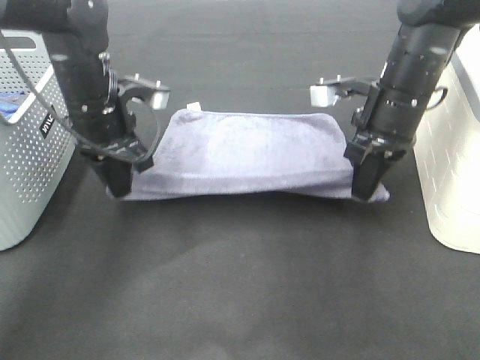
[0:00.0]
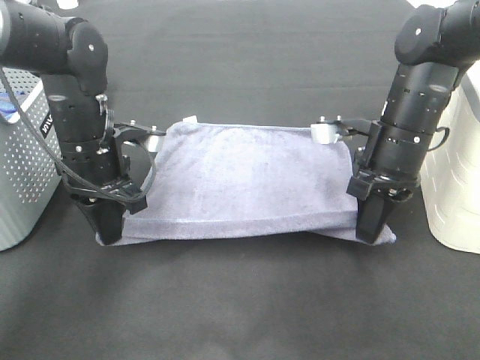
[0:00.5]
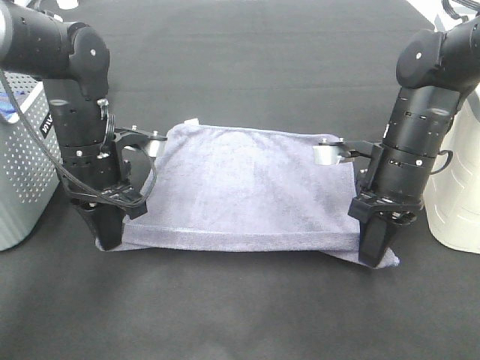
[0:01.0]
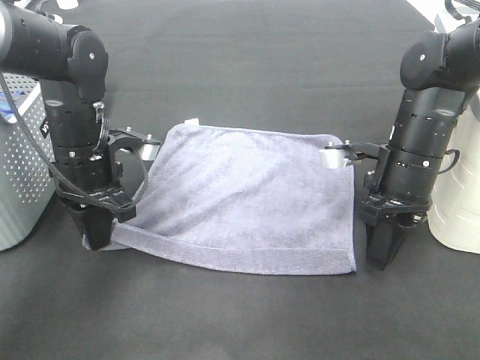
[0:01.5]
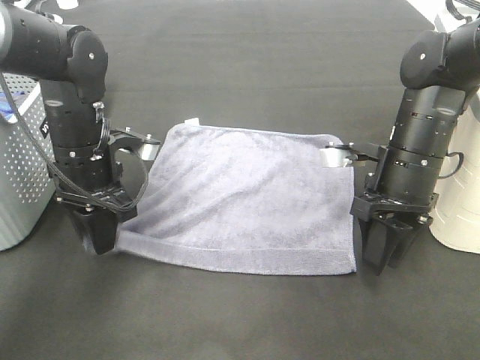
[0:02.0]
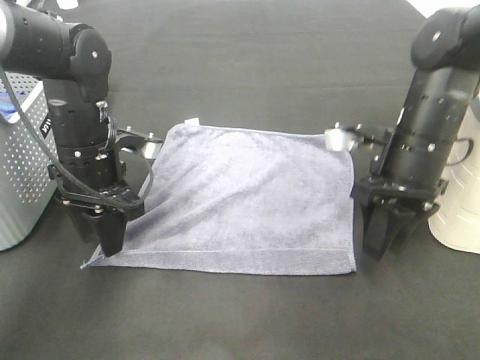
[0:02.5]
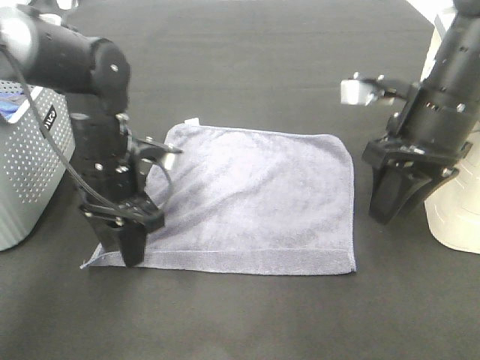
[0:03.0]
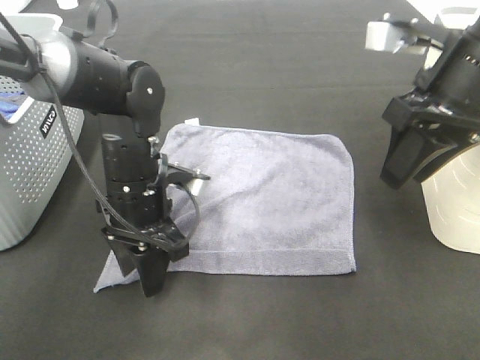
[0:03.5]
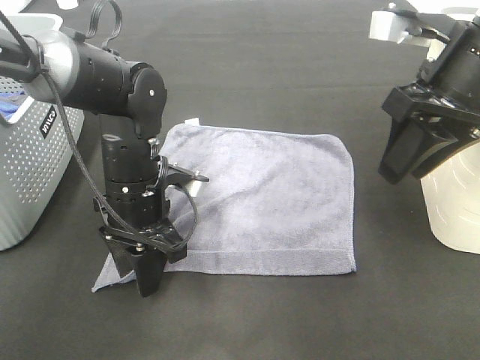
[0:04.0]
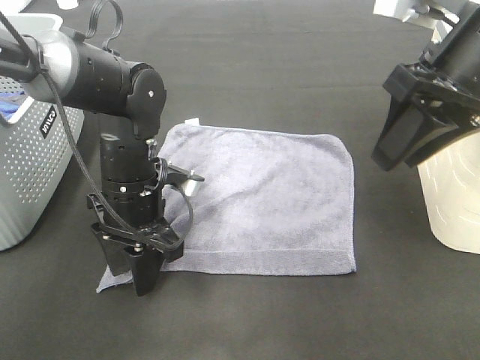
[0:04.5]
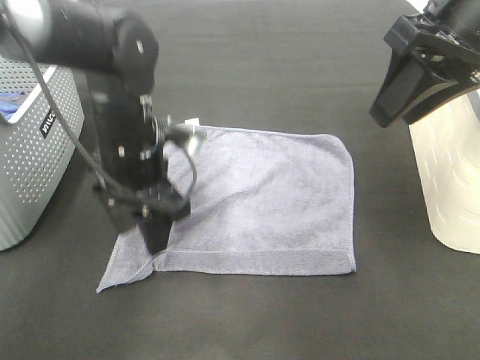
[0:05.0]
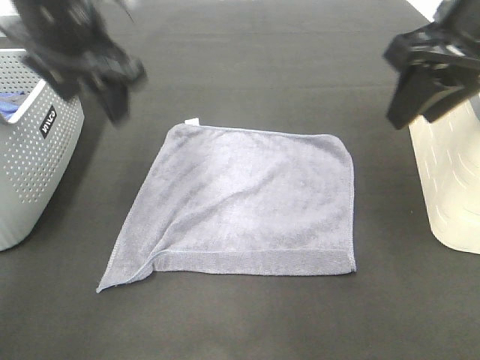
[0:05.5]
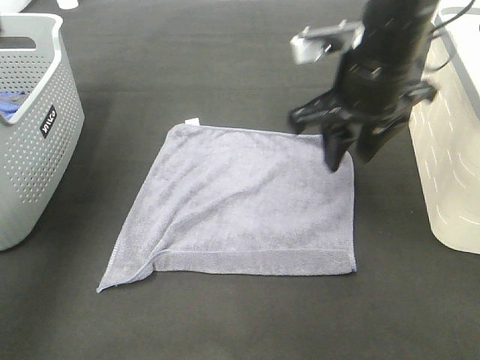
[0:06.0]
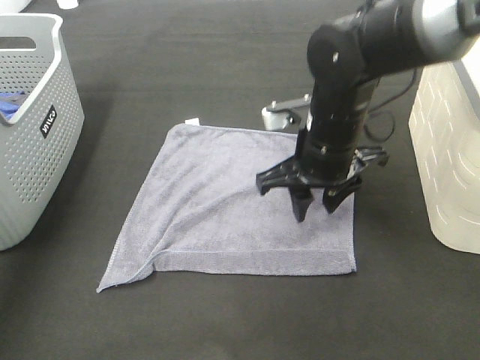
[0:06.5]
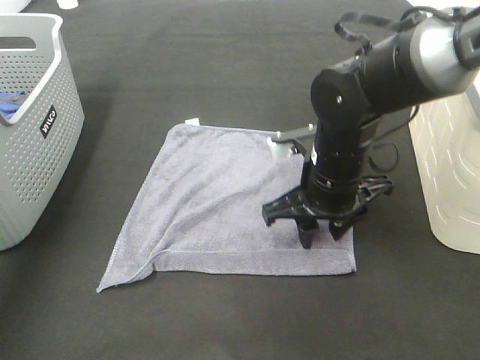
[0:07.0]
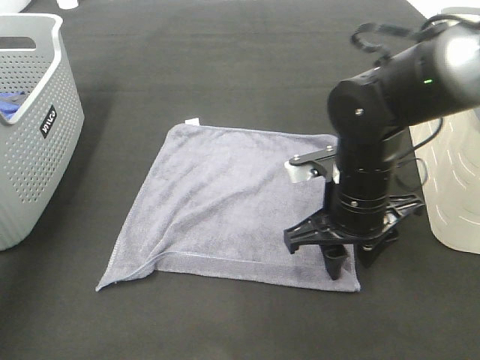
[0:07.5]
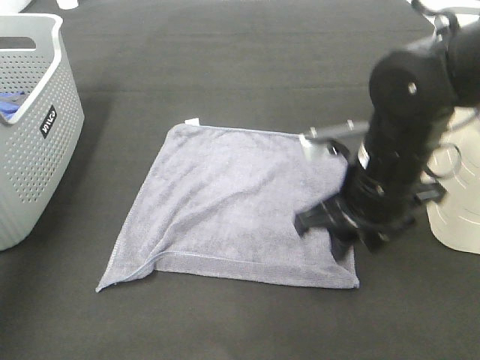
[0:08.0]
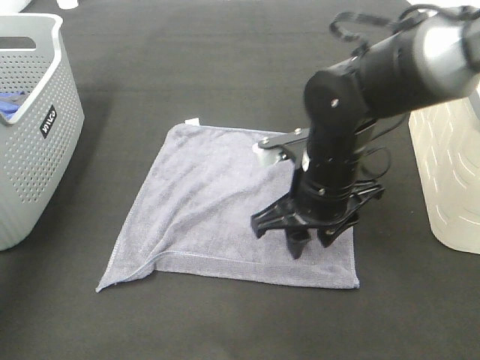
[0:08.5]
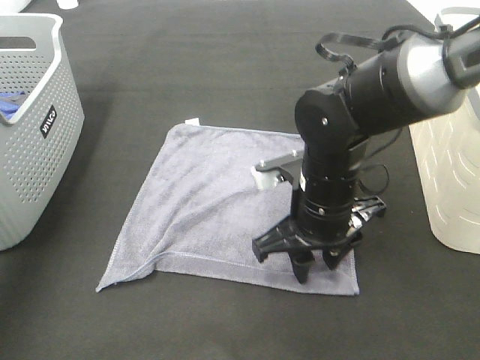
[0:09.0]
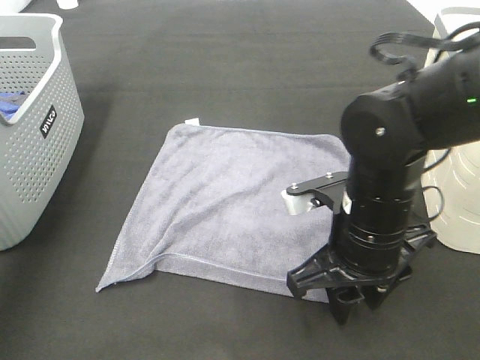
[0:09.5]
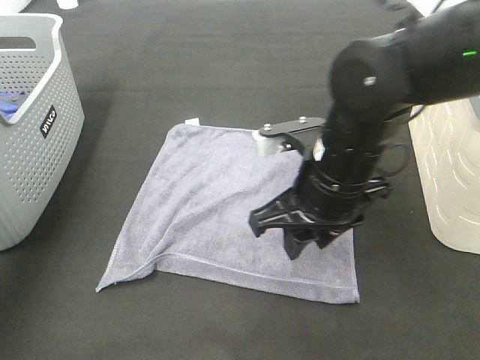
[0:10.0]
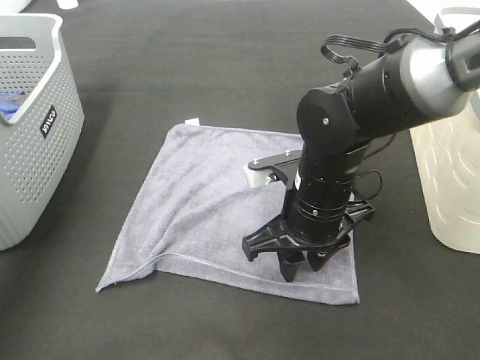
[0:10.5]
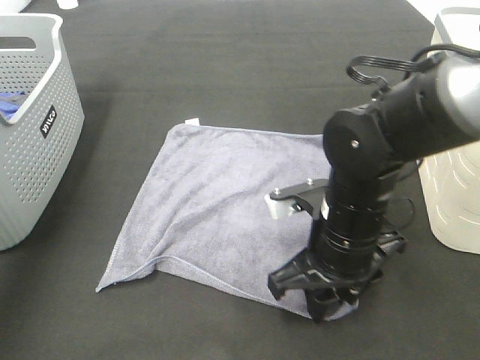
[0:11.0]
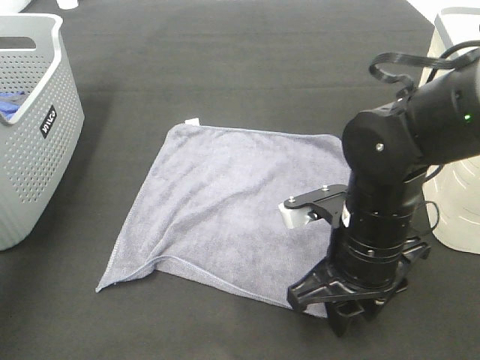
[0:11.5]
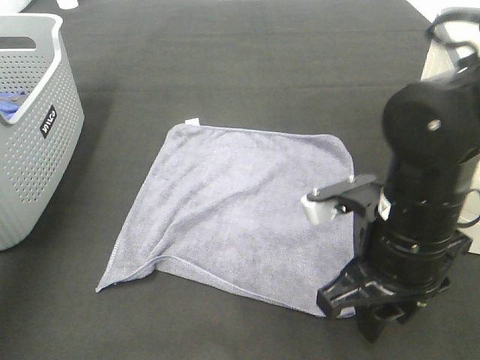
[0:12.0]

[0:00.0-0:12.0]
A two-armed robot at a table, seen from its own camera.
Task of the whole recording: Remove the towel and place it.
Step, 0:00.0 to 0:07.5: Right hand:adjust the gray towel.
0:00.0 to 0:02.0: The right gripper shifts by about 5 cm, and opens its fingers. The left gripper opens.
0:02.0 to 0:04.0: The right gripper heads upward, covering approximately 15 cm, while the left gripper shifts about 5 cm to the right.
0:04.0 to 0:06.0: The right gripper travels to the left by some 10 cm. The left gripper moves upward and to the left, about 30 cm.
0:06.0 to 0:08.0: The left gripper shifts about 5 cm to the left, while the right gripper moves downward and backward, approximately 10 cm.
0:10.0 to 0:12.0: The right gripper travels backward by some 5 cm.

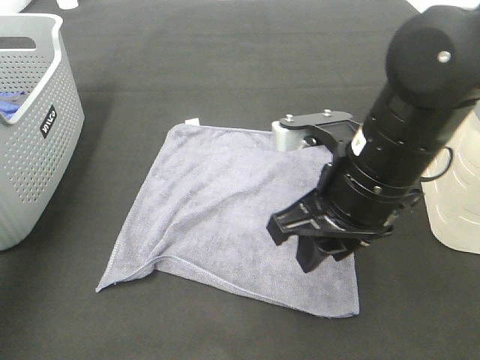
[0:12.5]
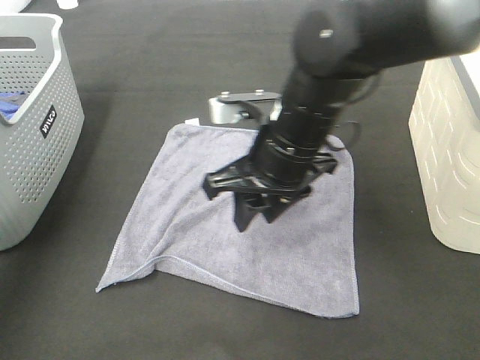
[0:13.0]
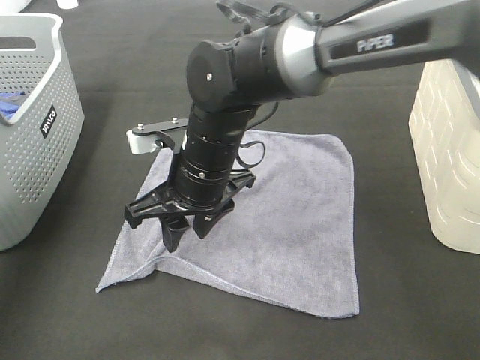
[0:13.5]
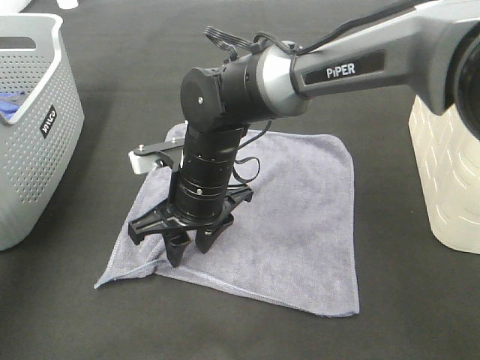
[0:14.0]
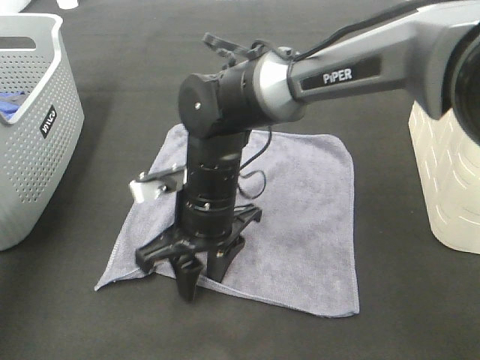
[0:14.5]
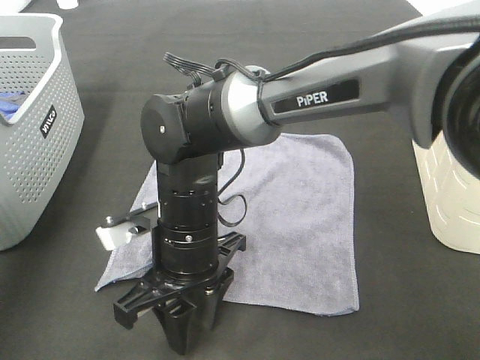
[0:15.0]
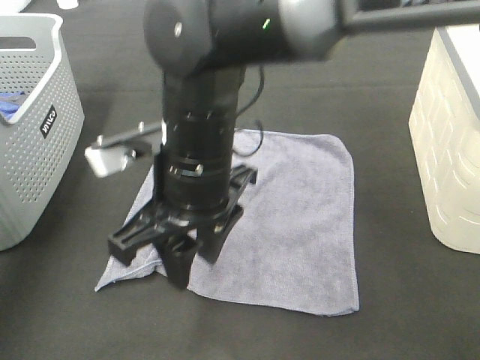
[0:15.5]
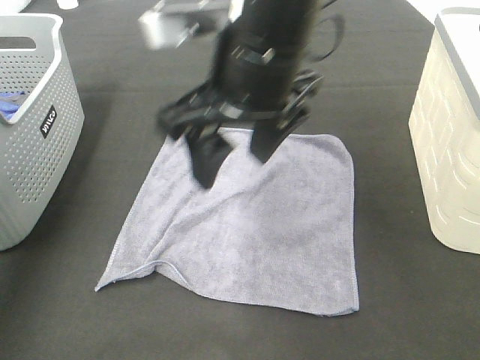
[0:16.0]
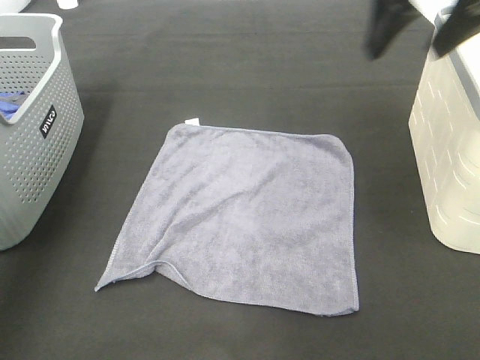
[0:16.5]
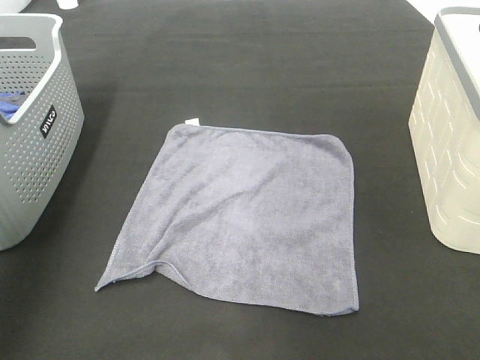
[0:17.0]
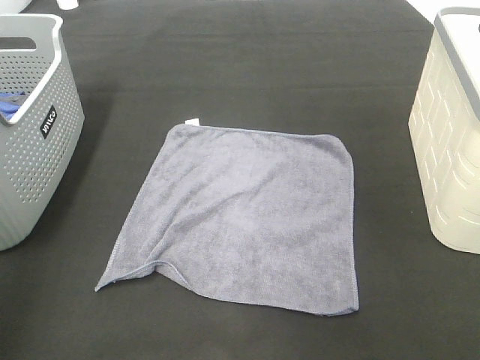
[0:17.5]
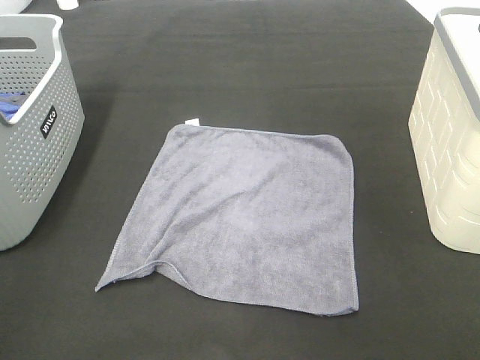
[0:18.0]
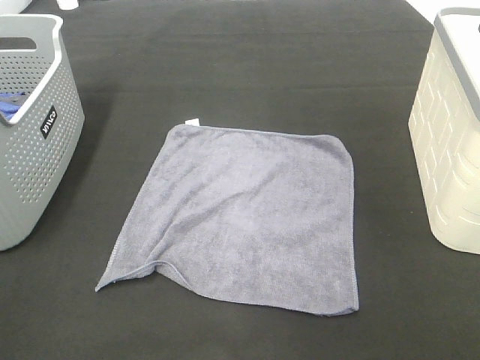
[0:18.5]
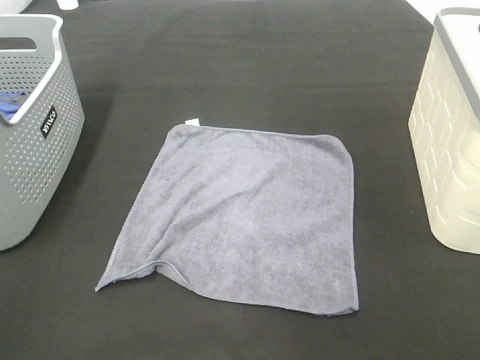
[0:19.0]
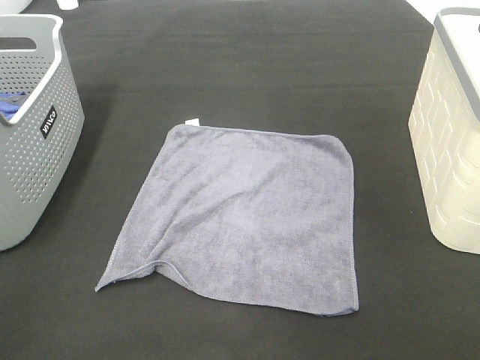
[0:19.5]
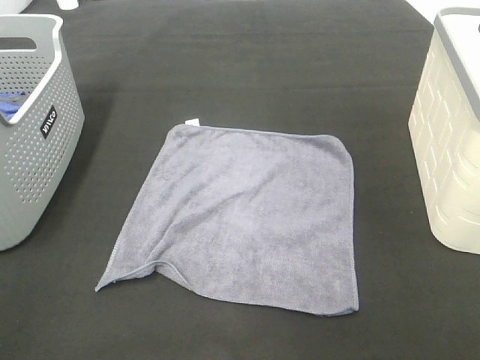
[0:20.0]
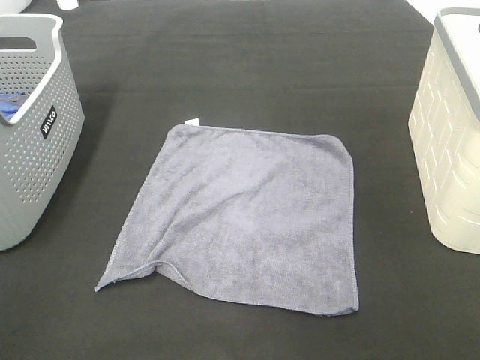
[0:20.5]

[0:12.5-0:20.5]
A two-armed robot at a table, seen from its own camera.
Task of the whole recording: Remove the towel and place it.
0:12.5 to 0:14.5: The right gripper moves to the left and downward, approximately 15 cm.
0:14.5 to 0:16.5: The right gripper shifts some 35 cm upward and to the right.
0:16.5 to 0:18.5: Both grippers move backward, roughly 35 cm.

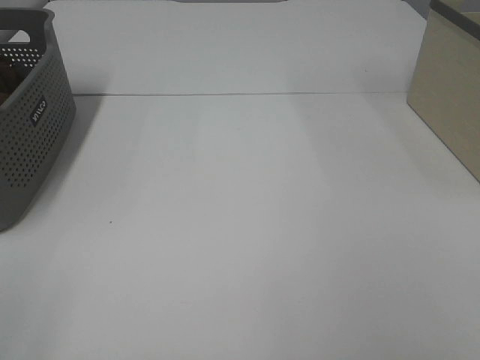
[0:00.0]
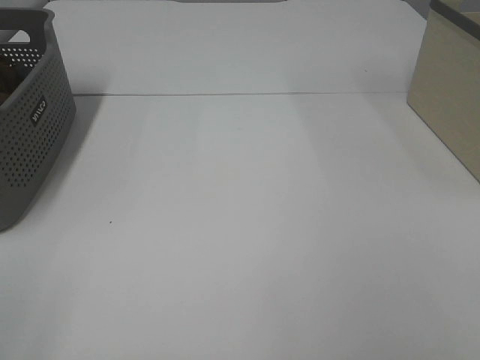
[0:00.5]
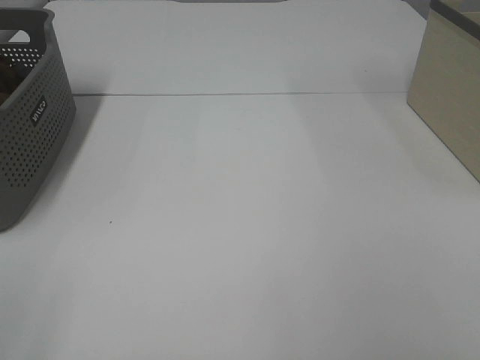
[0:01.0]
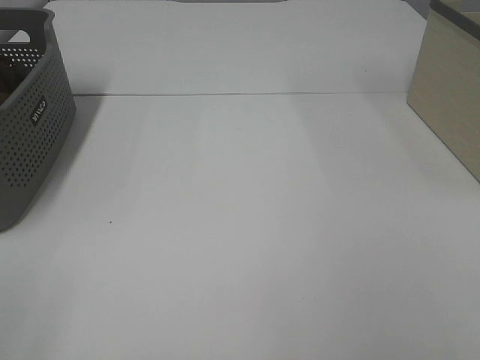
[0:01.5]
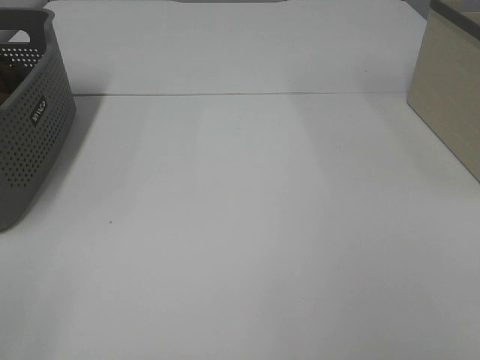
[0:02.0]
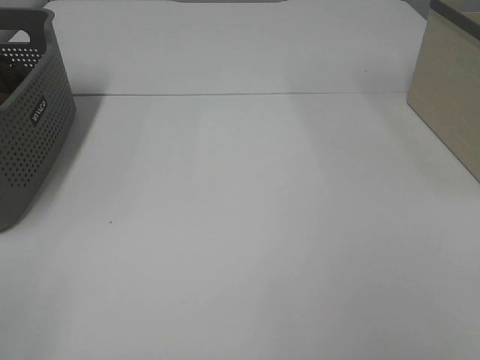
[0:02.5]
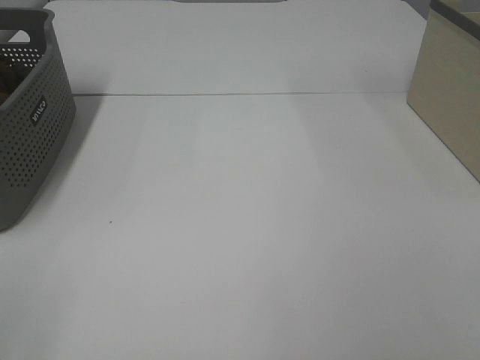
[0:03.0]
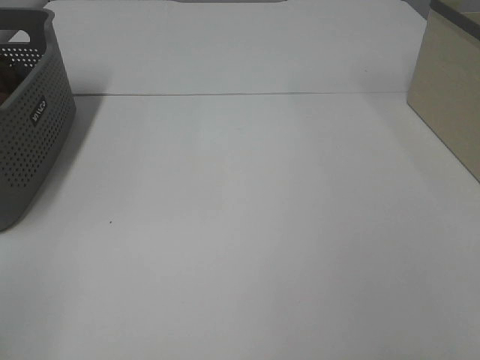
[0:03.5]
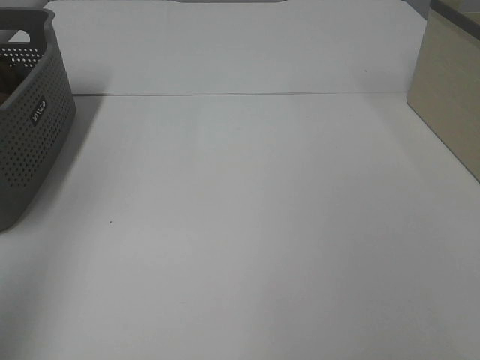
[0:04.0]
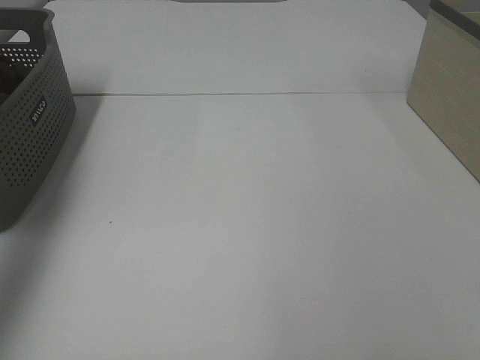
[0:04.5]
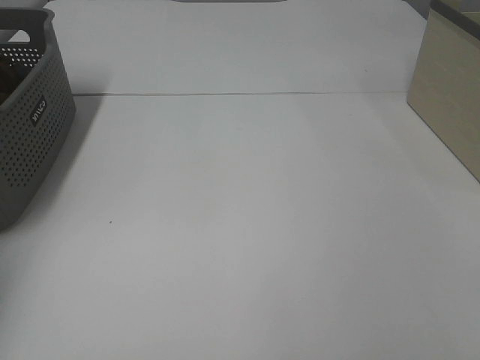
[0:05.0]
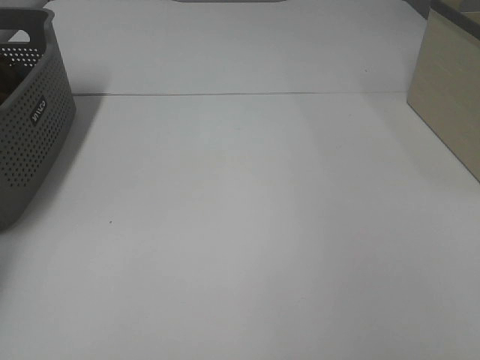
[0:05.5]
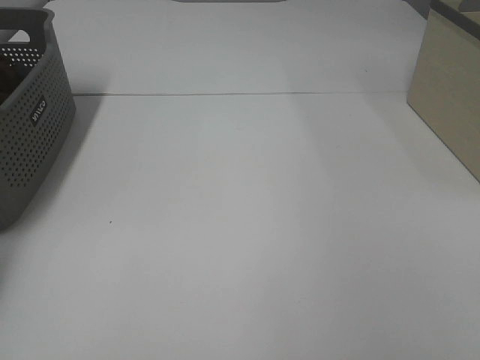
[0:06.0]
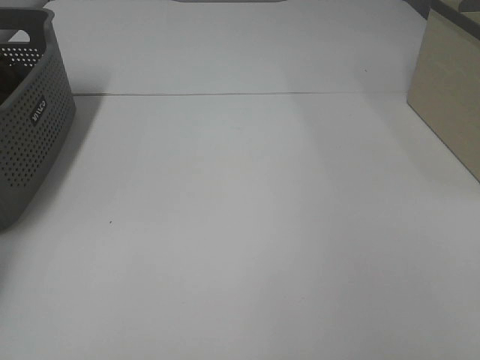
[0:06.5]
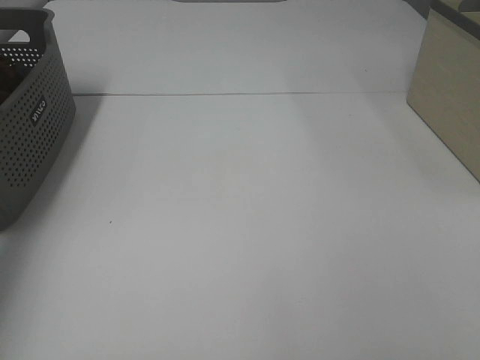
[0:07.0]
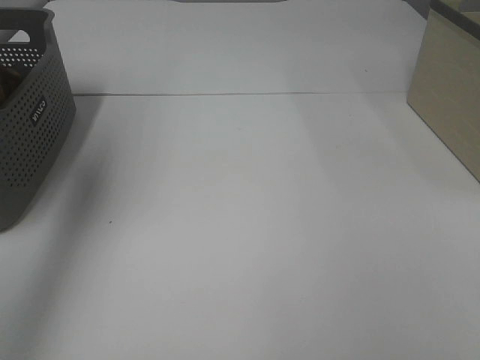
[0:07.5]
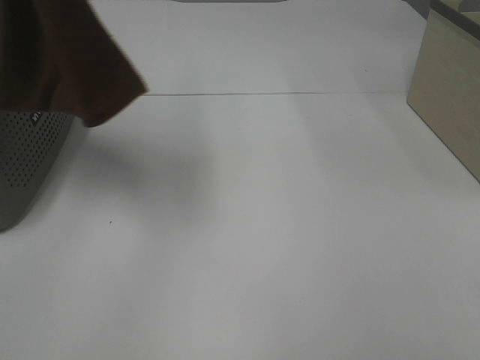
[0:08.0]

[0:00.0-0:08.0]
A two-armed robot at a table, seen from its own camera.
Task of the whole recording: Remove the towel and place it.
0:00.0 to 0:02.0: Both grippers stay about where they are.
0:02.0 to 0:04.0: The left gripper heads upward and forward, covering about 15 cm.
0:04.0 to 0:06.0: The left gripper travels forward and downward by some 40 cm, and closes its fingers.
0:06.0 to 0:08.0: The left gripper goes approximately 50 cm upward, to the right and backward.
